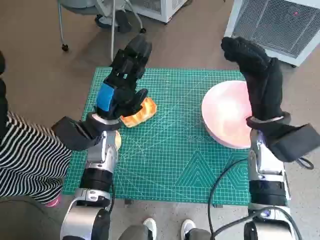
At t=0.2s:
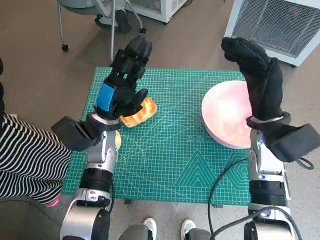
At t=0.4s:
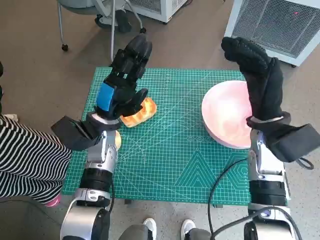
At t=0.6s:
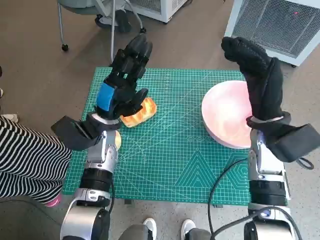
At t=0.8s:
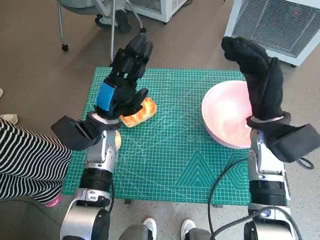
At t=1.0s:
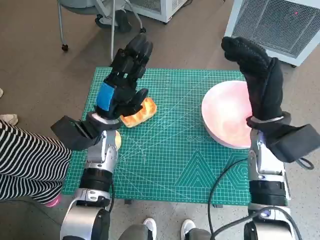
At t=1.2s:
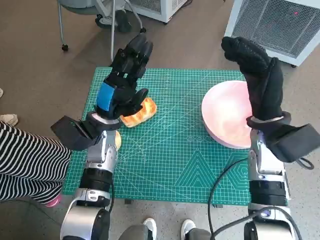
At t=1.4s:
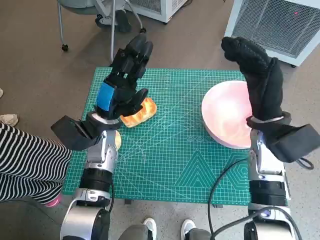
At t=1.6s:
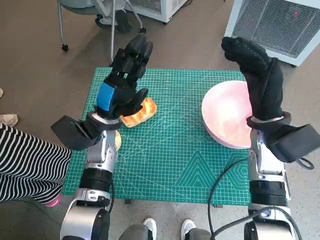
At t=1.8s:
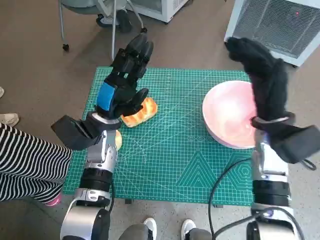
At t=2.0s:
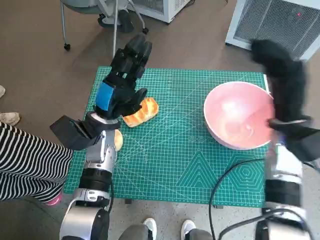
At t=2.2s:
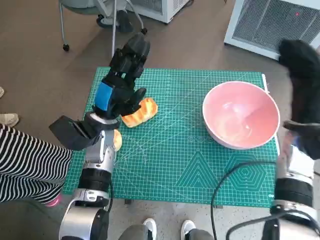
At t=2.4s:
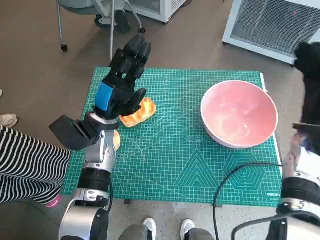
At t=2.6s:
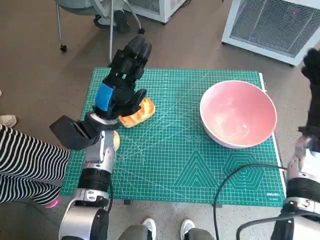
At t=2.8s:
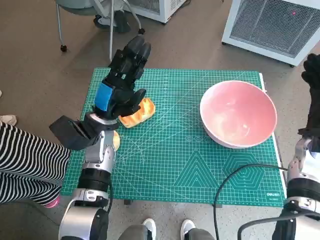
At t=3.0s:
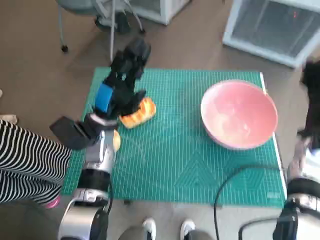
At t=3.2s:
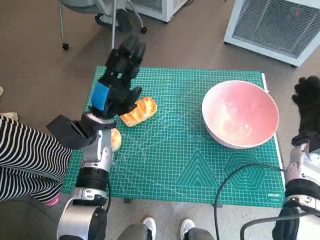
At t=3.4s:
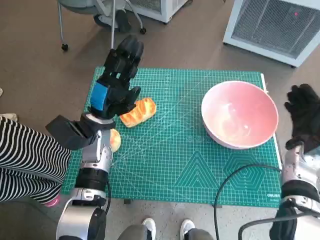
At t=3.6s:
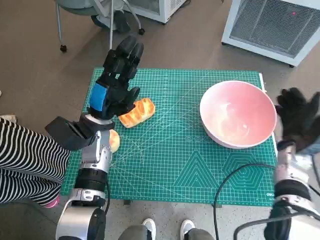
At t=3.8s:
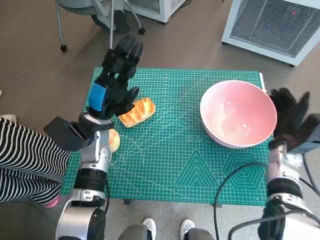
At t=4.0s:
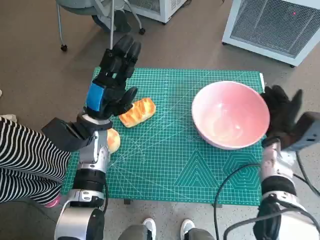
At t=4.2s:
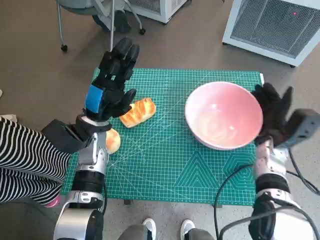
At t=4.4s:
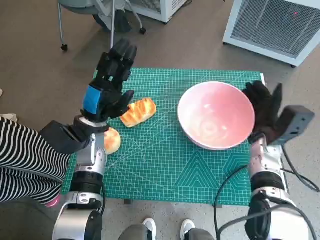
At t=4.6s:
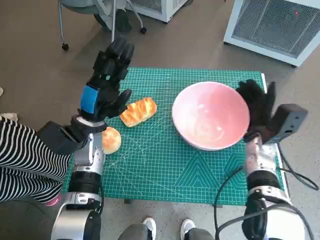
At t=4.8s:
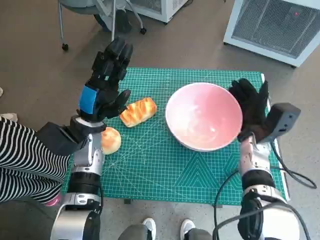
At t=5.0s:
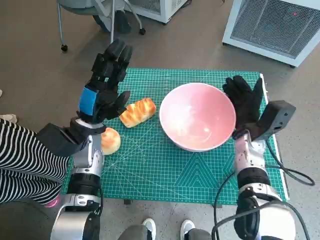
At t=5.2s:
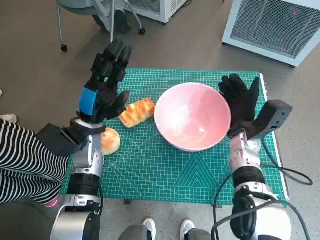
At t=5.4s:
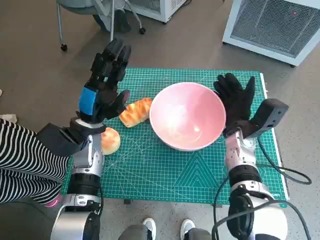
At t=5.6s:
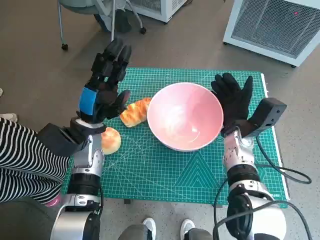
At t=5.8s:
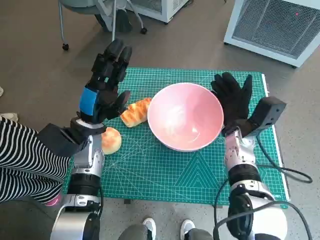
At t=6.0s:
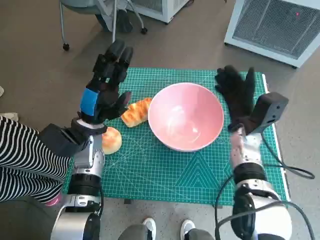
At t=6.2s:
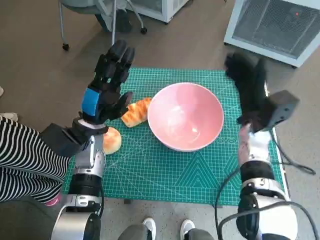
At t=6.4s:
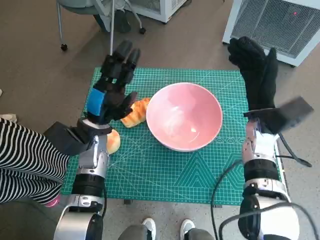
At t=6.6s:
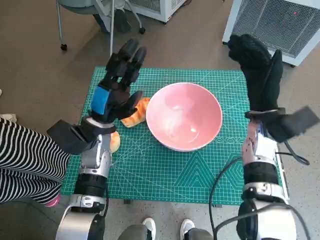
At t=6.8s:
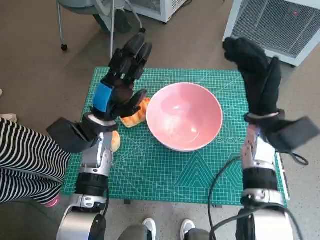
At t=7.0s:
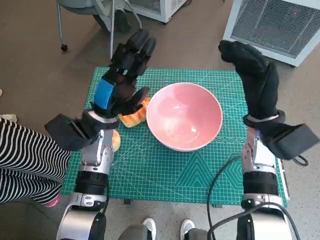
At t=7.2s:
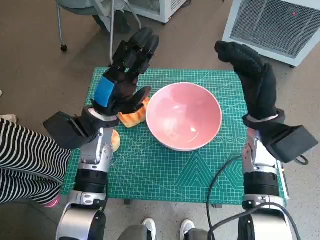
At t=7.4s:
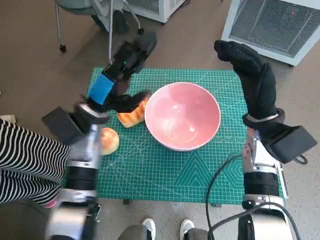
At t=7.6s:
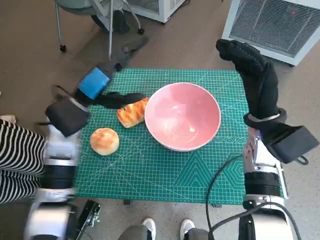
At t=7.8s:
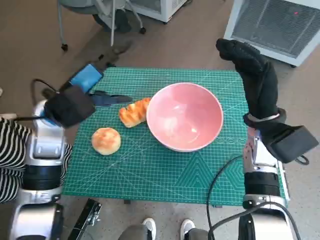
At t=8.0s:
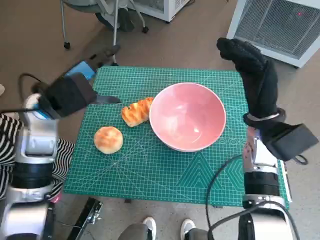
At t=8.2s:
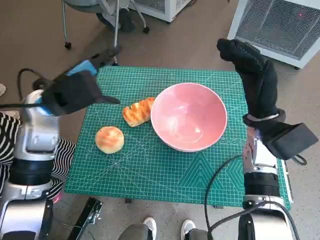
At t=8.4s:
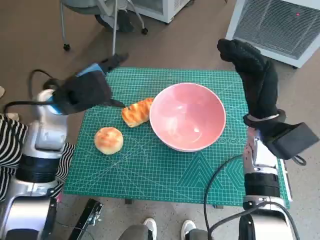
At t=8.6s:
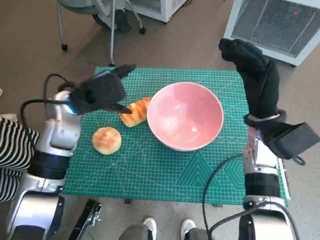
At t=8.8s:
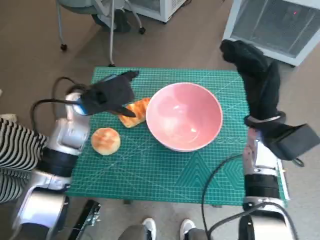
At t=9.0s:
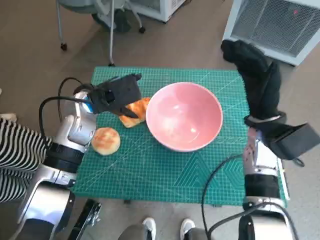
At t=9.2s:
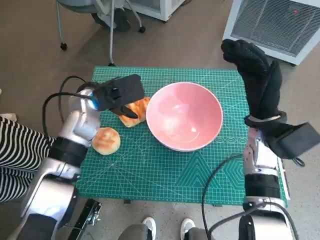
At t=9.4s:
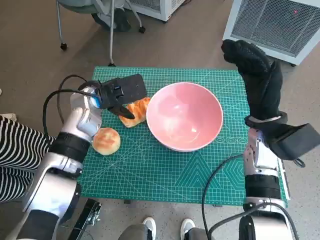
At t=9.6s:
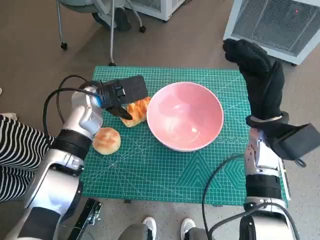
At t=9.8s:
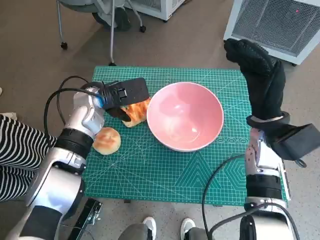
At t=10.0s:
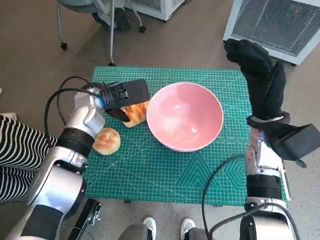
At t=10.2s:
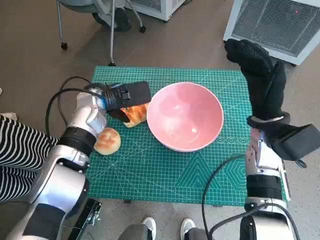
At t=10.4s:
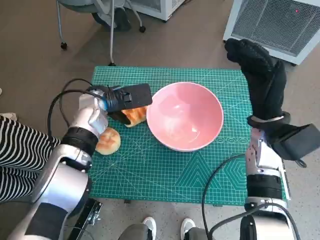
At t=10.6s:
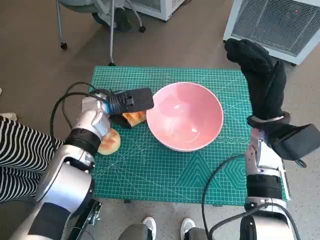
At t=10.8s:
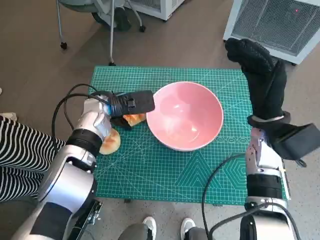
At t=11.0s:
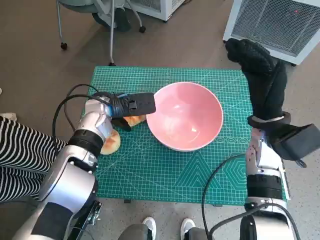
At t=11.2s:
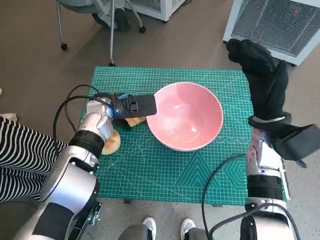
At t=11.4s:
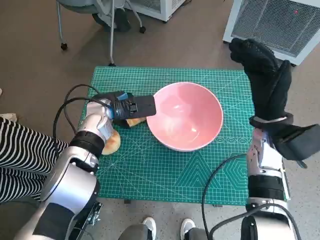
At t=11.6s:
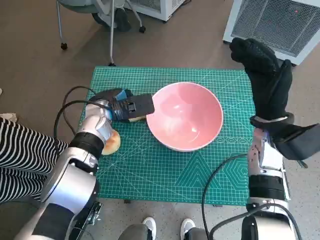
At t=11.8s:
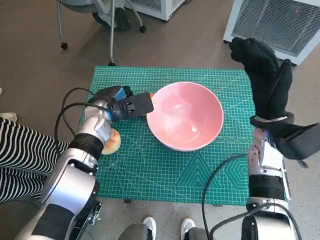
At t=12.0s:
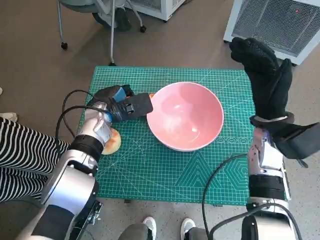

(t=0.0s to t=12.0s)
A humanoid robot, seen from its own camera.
Task of the whole recording: Push the bowl into the center of the table and put the bread into the bowl.
Step, t=0.0s - t=5.8s: Move the pink bowl to the center of table with right hand.
Step, t=6.2s - t=12.0s: Grasp the long bread with left hand.
t=1.6s - t=3.0s: The right hand shifts roughly 10 cm to the right and downward.
t=3.0s - t=4.4s: The right hand travels to the left by some 5 cm.
t=4.4s - t=6.0s: The right hand heads to the left, covering approximately 5 cm.
t=6.0s - t=7.6s: The hands both shift upward by approximately 5 cm.
t=10.4s - t=12.0s: The hands move only a little.

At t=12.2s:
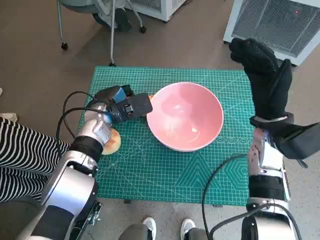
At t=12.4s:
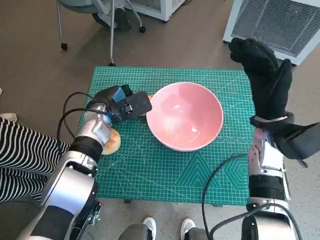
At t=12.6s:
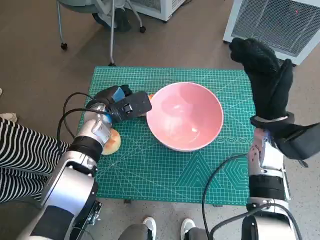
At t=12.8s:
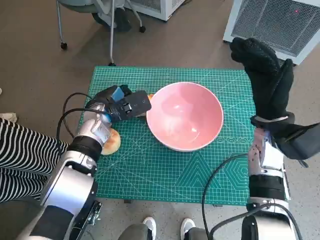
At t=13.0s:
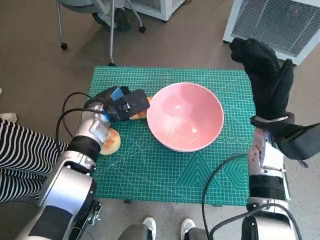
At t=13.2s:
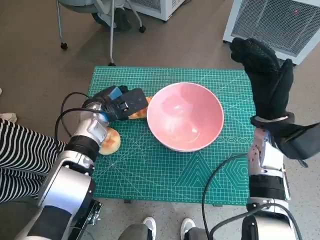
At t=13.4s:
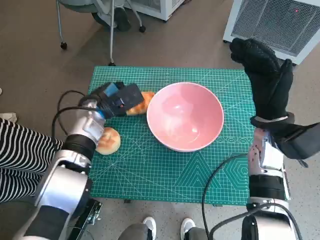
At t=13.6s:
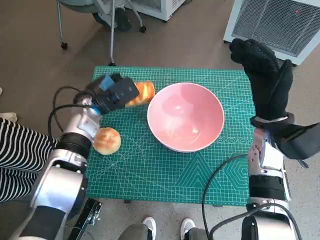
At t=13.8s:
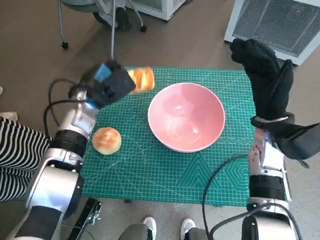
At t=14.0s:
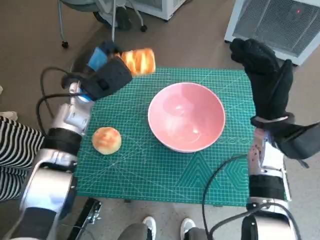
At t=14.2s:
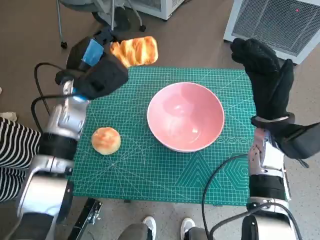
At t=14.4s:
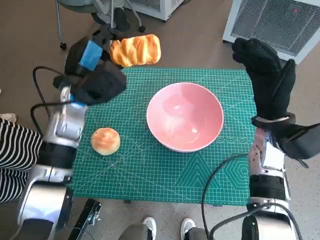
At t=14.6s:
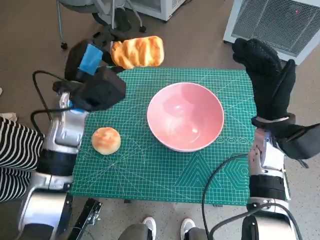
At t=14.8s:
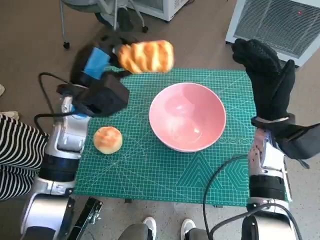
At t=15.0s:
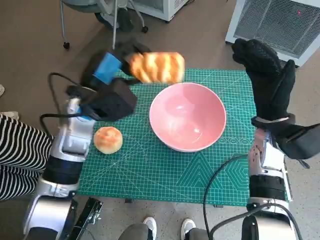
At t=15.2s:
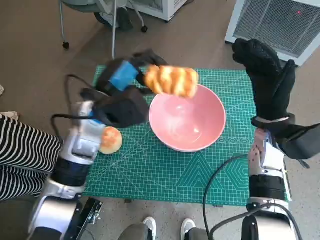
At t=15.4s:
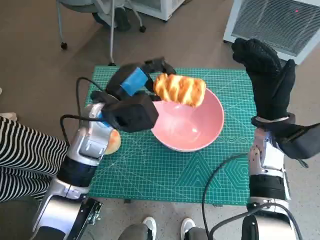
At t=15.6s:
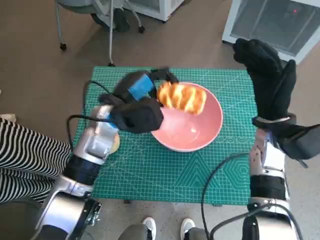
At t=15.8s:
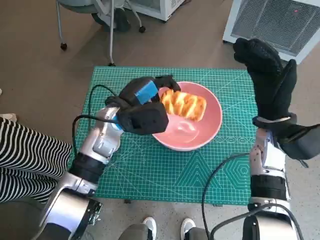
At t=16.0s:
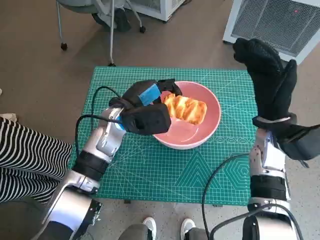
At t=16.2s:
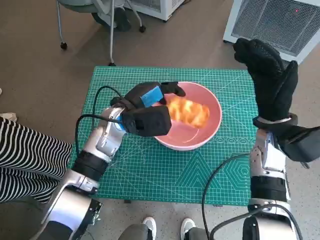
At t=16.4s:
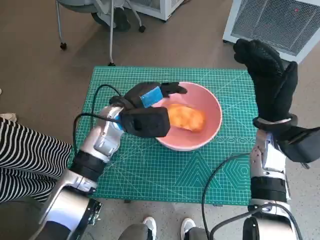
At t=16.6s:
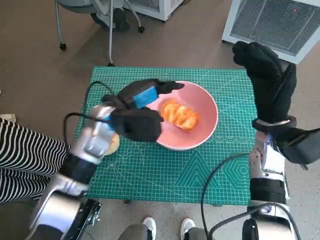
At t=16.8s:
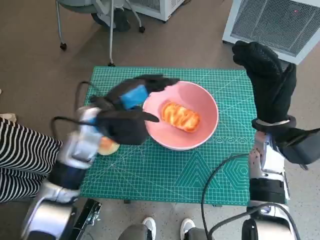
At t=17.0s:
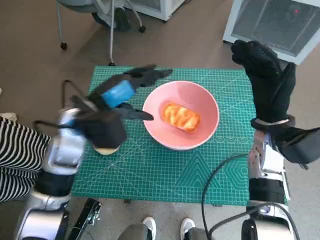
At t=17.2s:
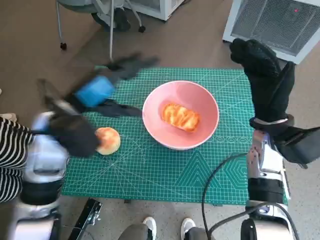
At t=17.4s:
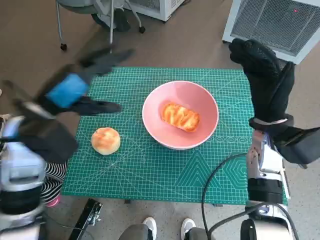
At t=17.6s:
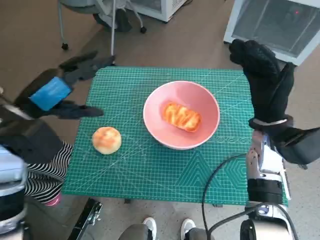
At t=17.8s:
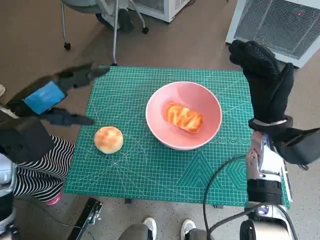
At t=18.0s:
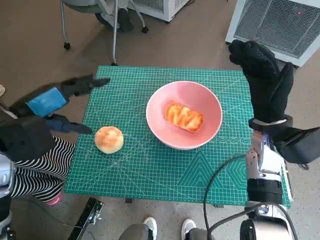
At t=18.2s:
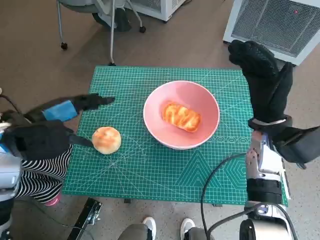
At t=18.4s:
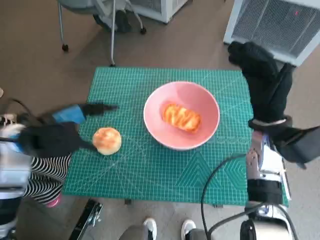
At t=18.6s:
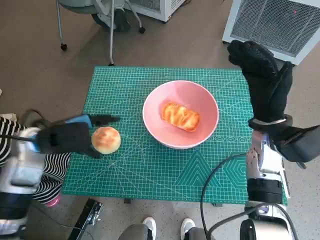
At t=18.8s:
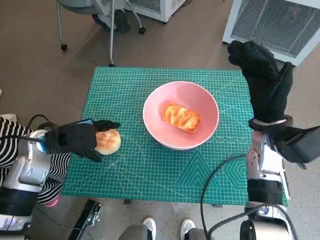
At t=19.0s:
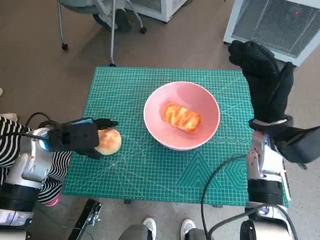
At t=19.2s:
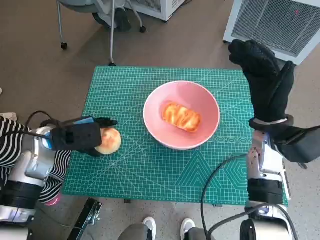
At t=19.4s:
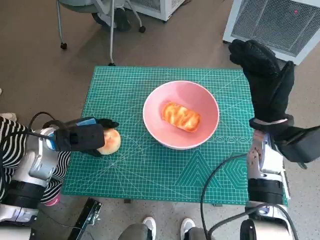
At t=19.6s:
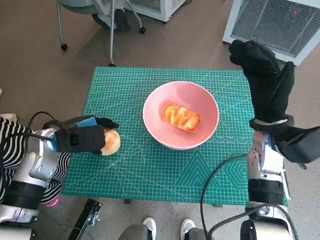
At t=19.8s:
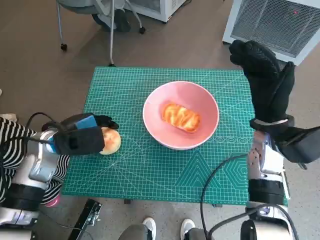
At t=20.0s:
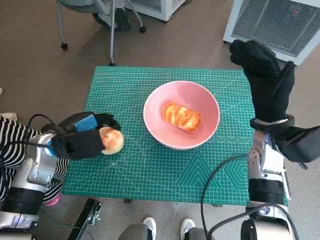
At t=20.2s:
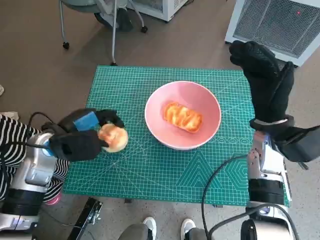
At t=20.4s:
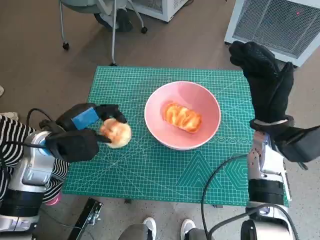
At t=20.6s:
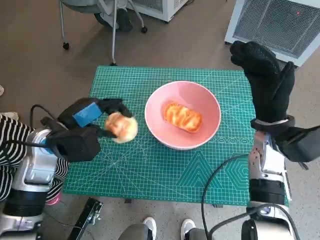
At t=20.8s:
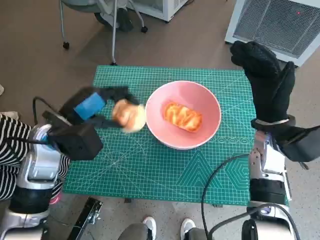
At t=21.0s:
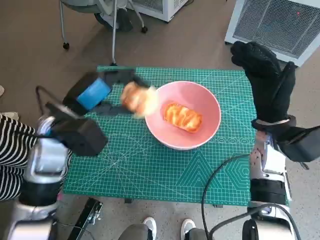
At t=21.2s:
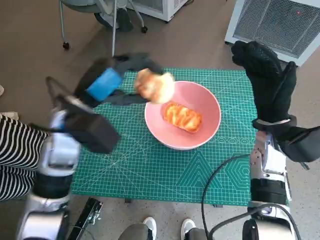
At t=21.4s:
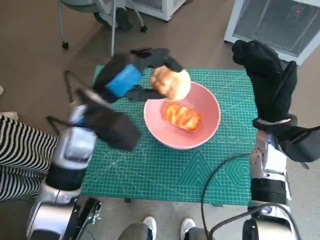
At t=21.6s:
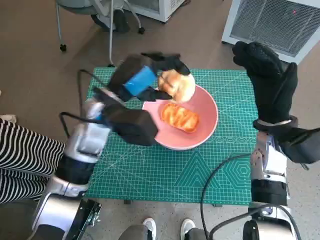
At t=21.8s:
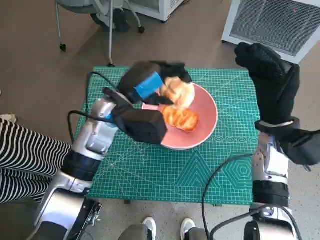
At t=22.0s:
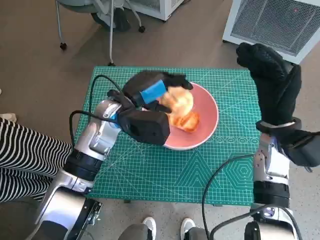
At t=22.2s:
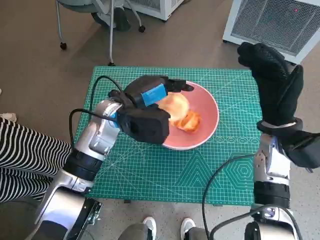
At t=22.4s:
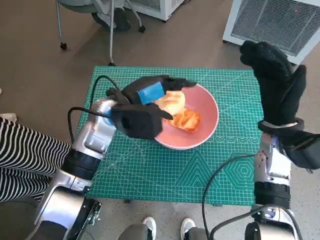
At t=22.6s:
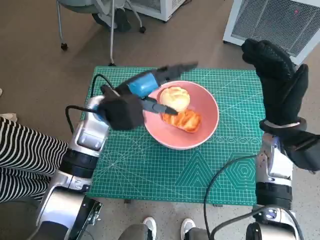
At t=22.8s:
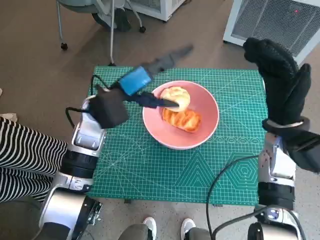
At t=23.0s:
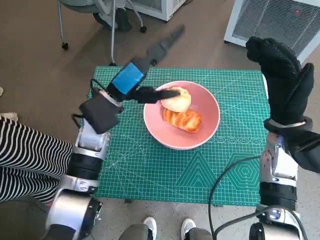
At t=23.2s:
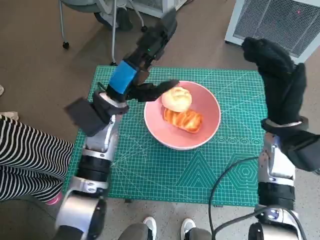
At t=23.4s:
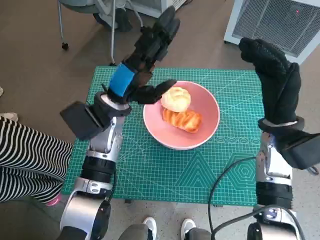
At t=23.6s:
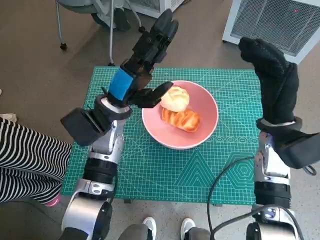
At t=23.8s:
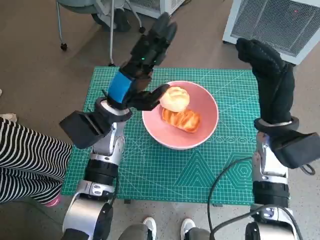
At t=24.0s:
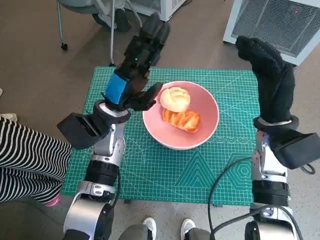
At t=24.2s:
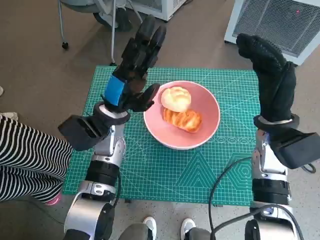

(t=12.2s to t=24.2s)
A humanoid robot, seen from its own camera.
Task of the whole recording: Push the bowl into the center of the table and put the bread into the bowl.
Step, t=12.2s - t=16.8s: Place the long bread in pink bowl with left hand.
Step, t=17.0s - t=19.8s: Grasp the round bread with left hand.
Step, t=20.0s - t=22.8s: Place the round bread in pink bowl with left hand.
t=13.8s - t=15.2s: The left hand changes place by about 10 cm.
t=16.6s - t=18.2s: The left hand moves to the left, backward and upward, approximately 20 cm.
t=18.2s - t=19.8s: The left hand heads downward, covering about 10 cm.
t=19.8s - t=21.2s: The left hand travels upward and to the right by about 10 cm.
t=21.2s - t=22.6s: The left hand ends up approximately 5 cm from where it was.
